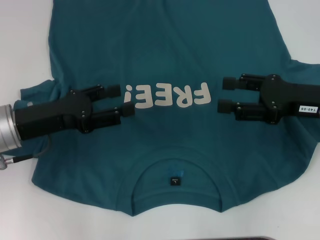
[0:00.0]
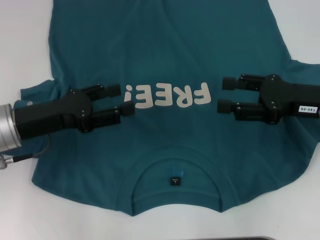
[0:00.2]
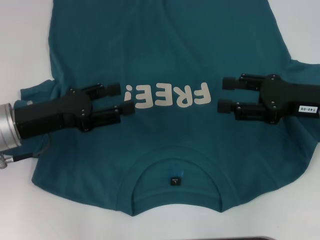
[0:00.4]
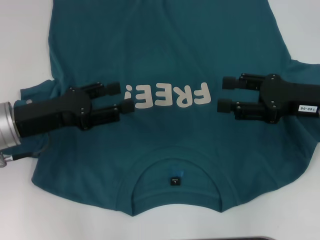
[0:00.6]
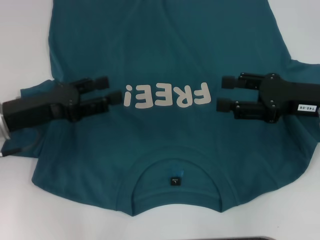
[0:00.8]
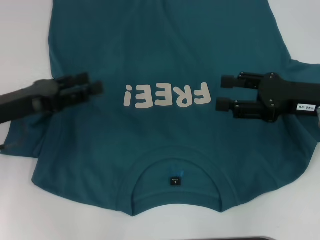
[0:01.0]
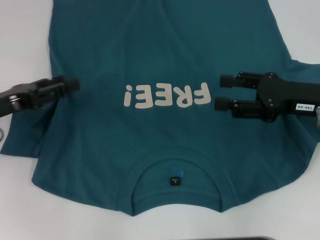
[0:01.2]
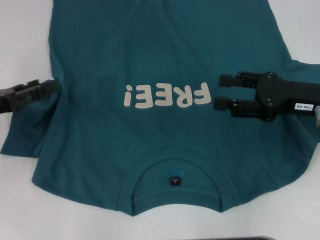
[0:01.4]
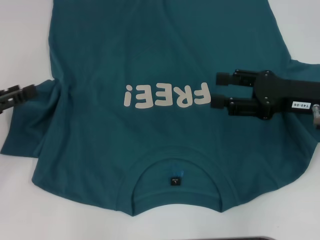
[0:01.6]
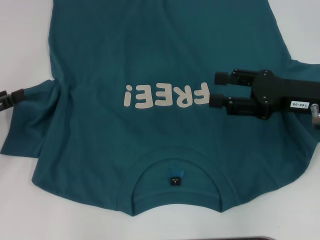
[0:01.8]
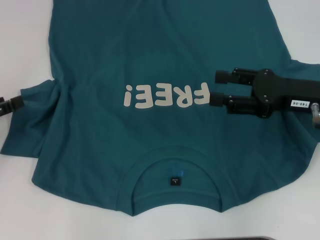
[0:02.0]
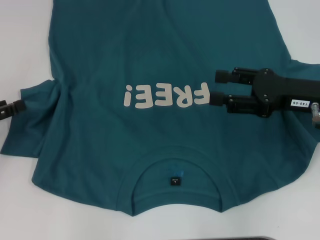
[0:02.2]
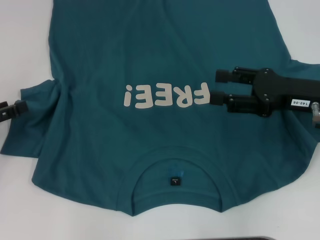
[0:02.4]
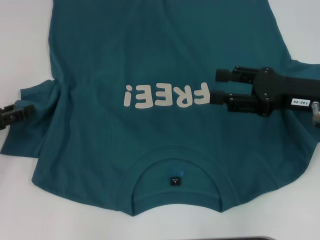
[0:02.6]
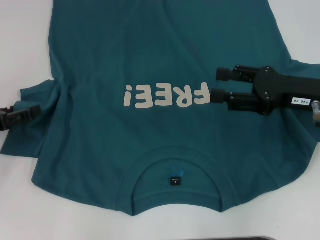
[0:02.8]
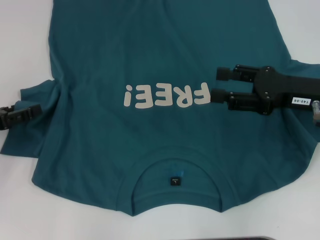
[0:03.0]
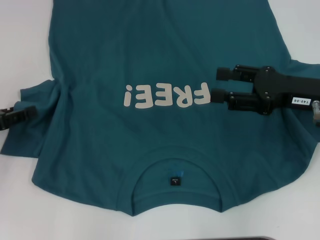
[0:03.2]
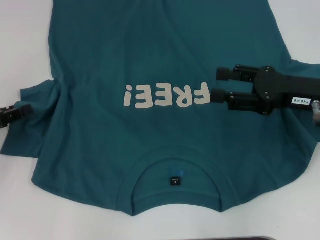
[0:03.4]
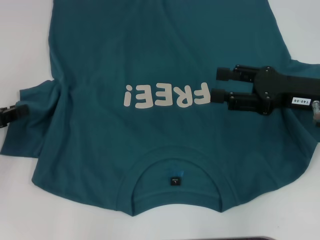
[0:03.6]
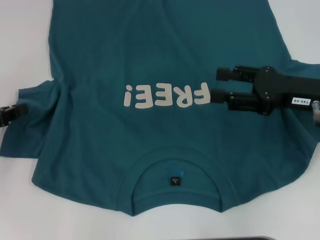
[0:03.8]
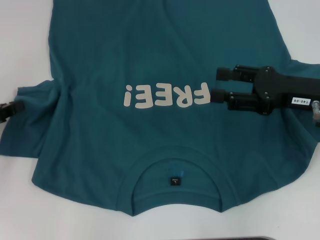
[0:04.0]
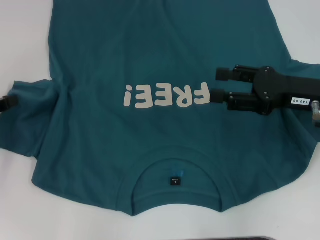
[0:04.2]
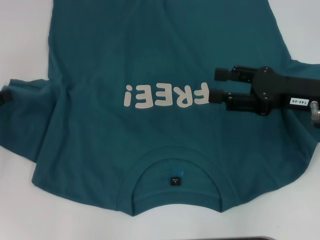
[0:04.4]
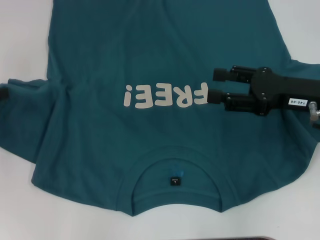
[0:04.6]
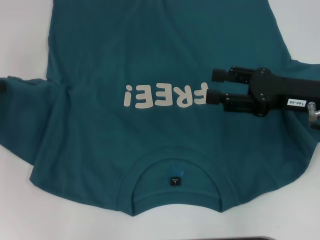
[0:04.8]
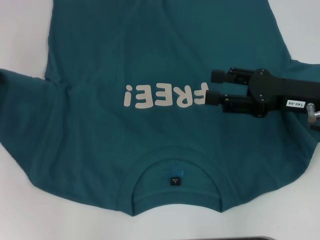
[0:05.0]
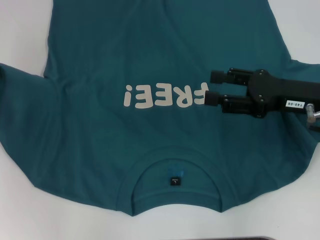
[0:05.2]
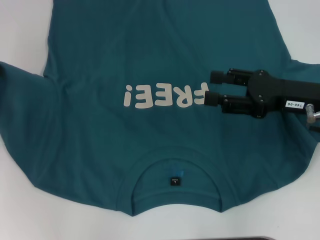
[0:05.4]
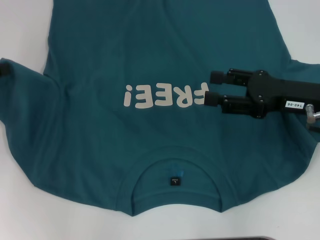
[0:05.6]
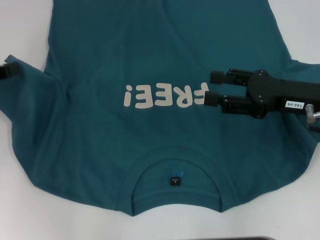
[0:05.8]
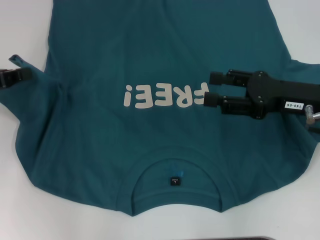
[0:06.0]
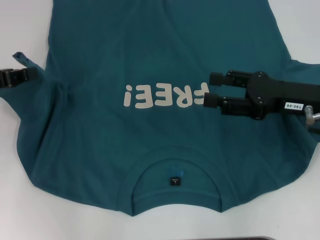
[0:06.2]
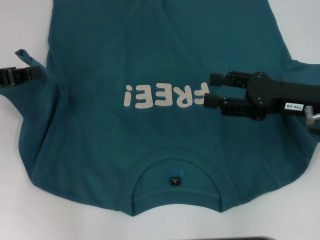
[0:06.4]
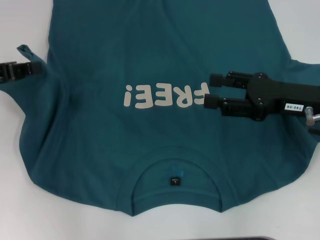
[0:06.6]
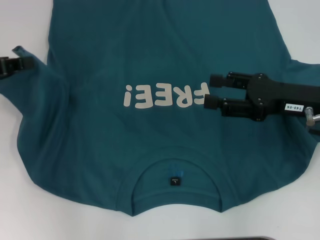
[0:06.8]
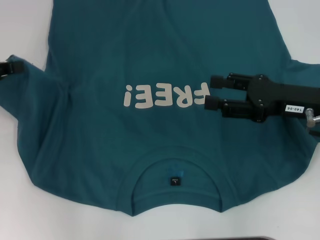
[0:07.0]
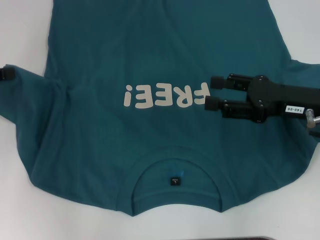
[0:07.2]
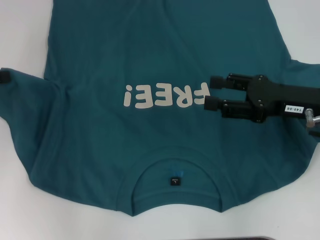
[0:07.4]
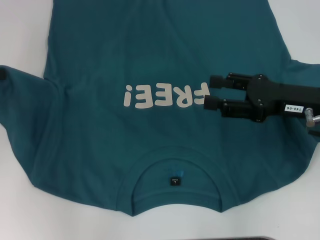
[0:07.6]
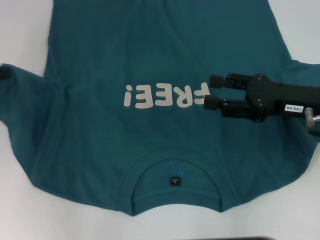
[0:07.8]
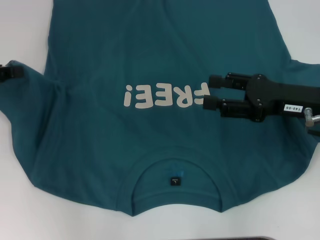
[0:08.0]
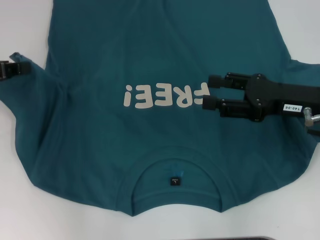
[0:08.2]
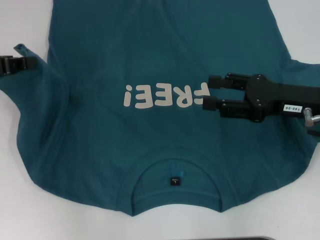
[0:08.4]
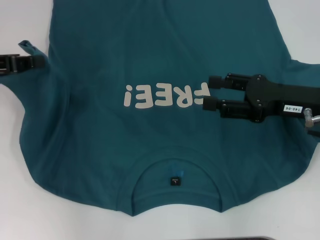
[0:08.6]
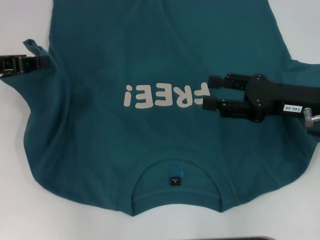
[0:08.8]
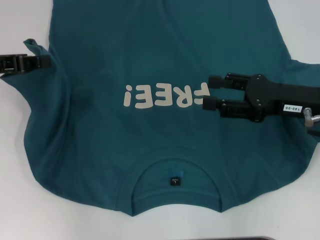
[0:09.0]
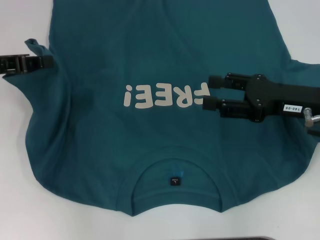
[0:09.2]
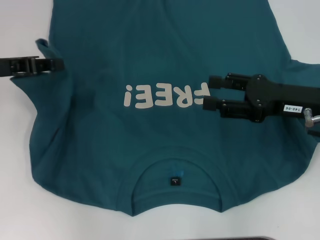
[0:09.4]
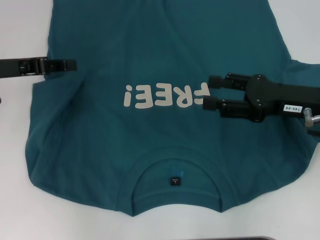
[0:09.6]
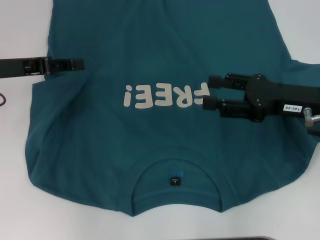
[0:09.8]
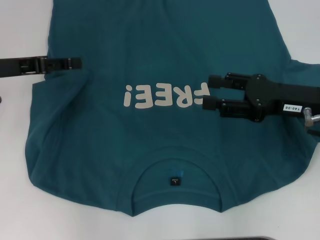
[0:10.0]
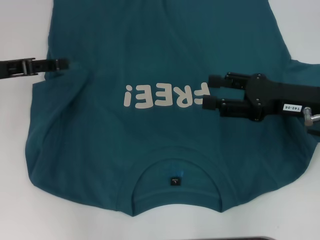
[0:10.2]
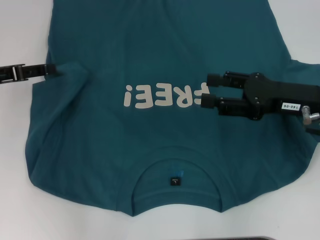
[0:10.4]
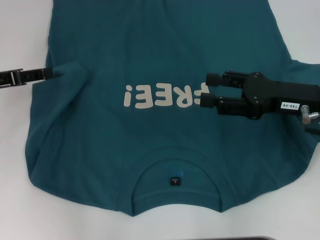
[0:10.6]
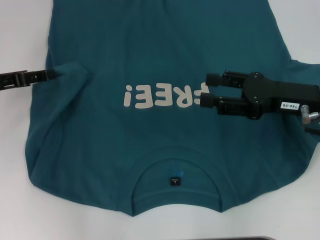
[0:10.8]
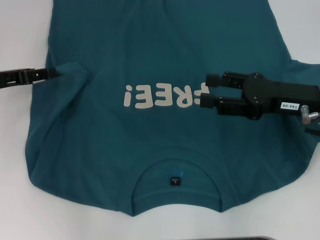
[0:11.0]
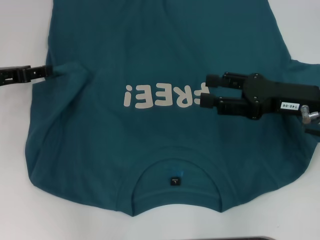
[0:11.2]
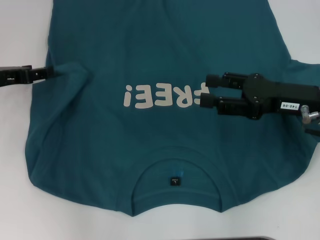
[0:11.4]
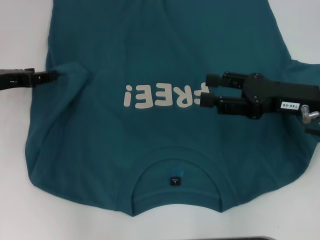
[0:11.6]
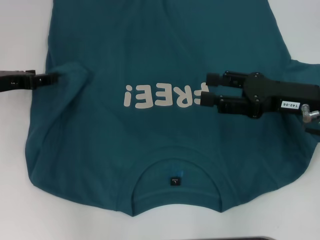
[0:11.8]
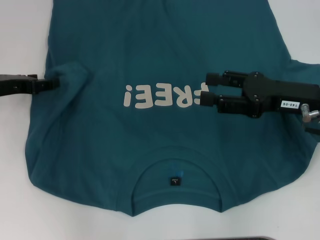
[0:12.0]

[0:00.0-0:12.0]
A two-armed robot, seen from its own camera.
0:00.0 to 0:01.6: The left gripper goes approximately 10 cm to the left.
0:01.6 to 0:03.0: The grippers make only small movements.
0:03.0 to 0:04.4: The left gripper closes up.
0:04.4 to 0:06.0: The left gripper shifts by about 5 cm.
0:06.0 to 0:07.6: The grippers move only a little.
0:07.6 to 0:09.0: The left gripper shifts approximately 5 cm to the right.
0:09.0 to 0:10.4: The left gripper opens up.
0:10.4 to 0:12.0: The grippers stay close to where they were, moving slightly.

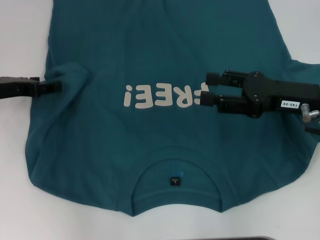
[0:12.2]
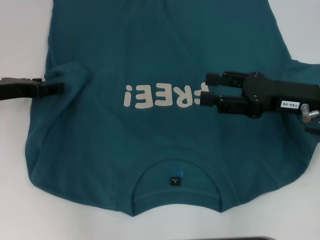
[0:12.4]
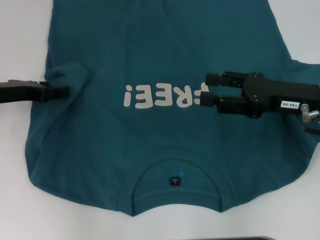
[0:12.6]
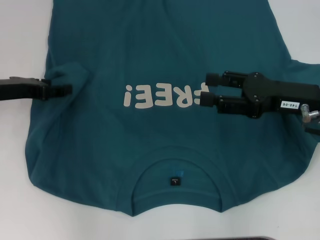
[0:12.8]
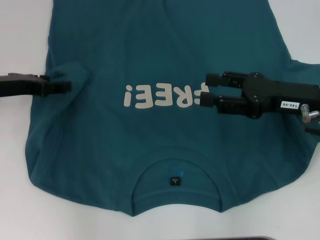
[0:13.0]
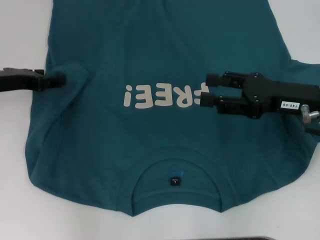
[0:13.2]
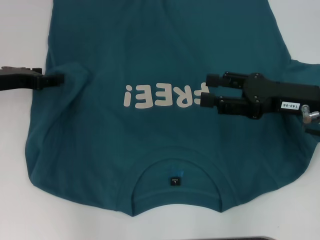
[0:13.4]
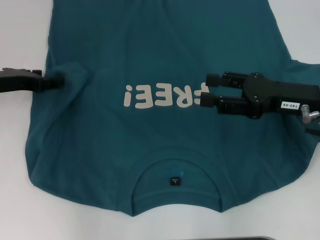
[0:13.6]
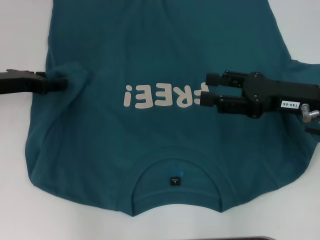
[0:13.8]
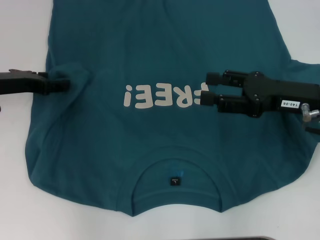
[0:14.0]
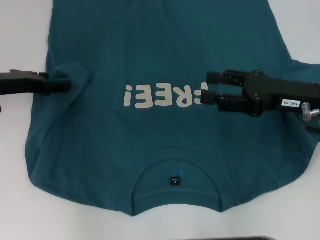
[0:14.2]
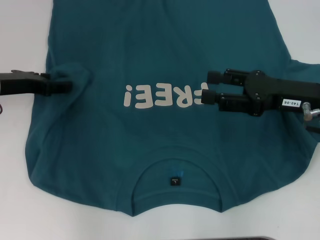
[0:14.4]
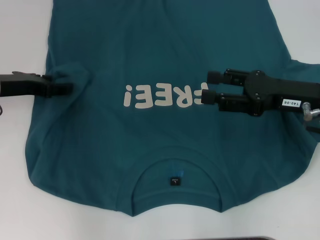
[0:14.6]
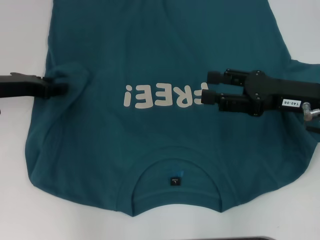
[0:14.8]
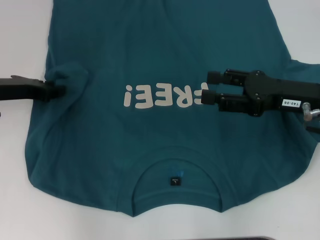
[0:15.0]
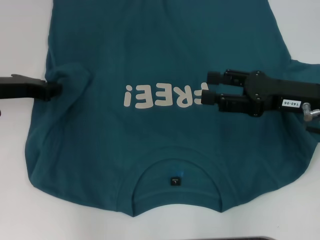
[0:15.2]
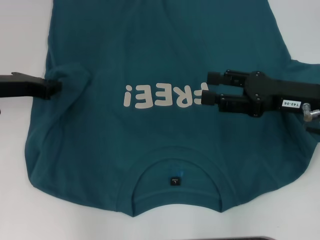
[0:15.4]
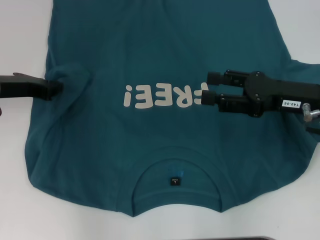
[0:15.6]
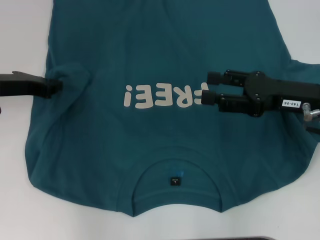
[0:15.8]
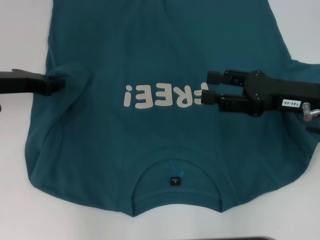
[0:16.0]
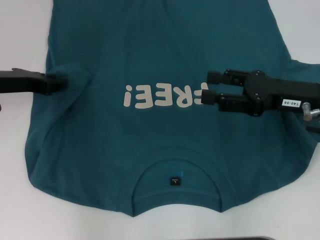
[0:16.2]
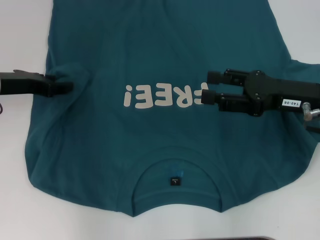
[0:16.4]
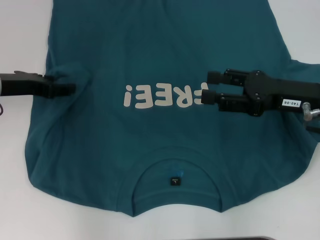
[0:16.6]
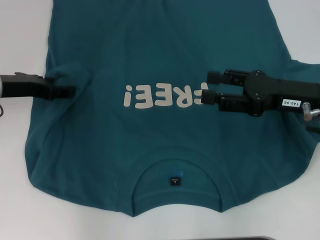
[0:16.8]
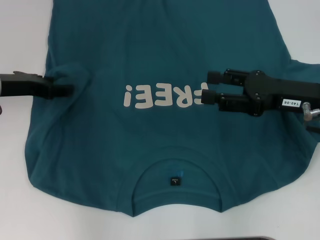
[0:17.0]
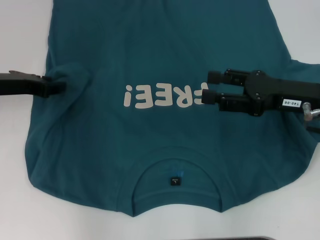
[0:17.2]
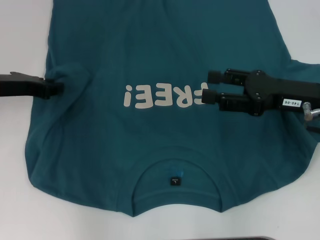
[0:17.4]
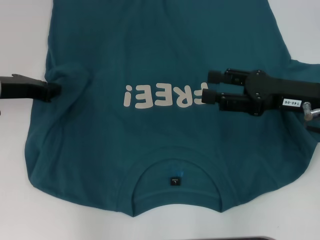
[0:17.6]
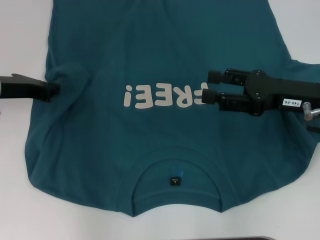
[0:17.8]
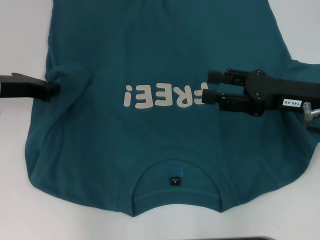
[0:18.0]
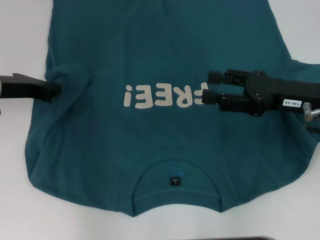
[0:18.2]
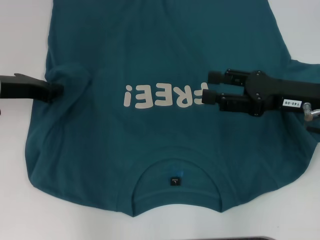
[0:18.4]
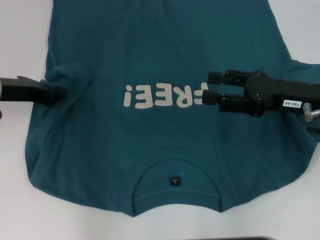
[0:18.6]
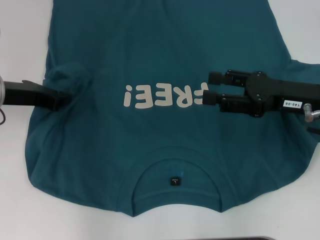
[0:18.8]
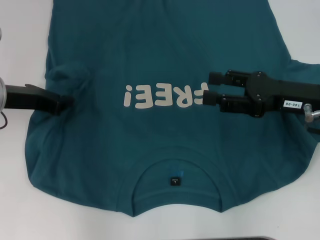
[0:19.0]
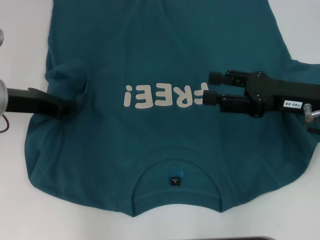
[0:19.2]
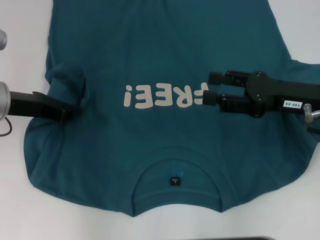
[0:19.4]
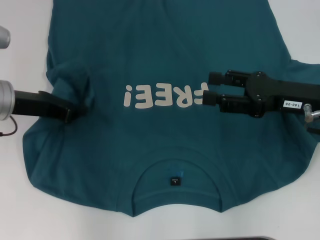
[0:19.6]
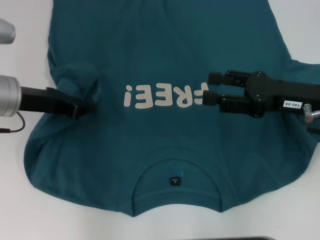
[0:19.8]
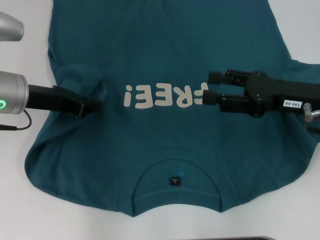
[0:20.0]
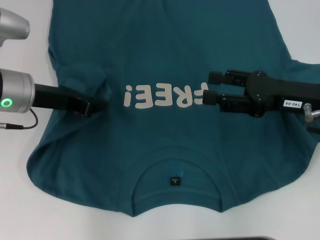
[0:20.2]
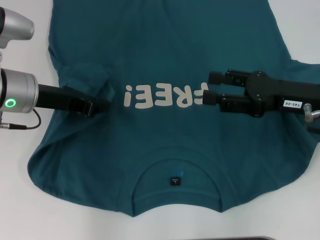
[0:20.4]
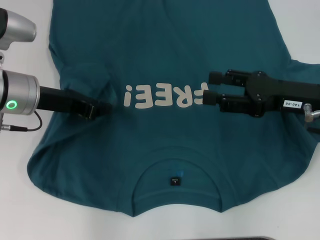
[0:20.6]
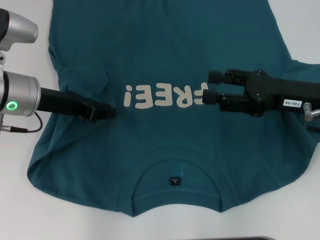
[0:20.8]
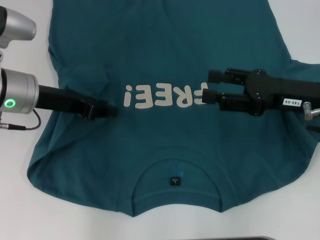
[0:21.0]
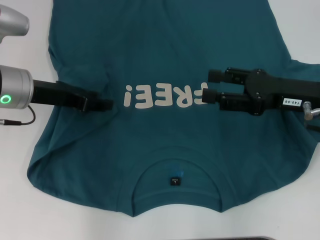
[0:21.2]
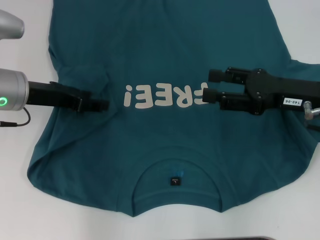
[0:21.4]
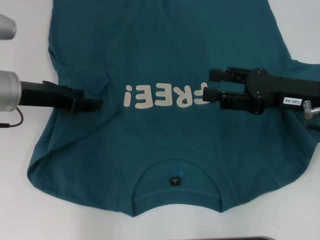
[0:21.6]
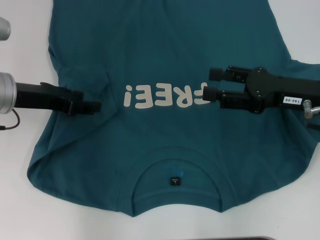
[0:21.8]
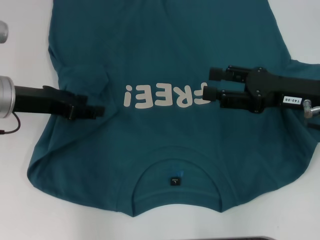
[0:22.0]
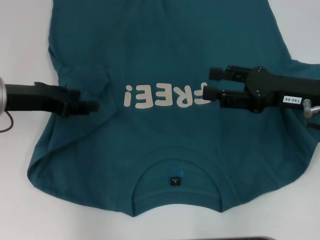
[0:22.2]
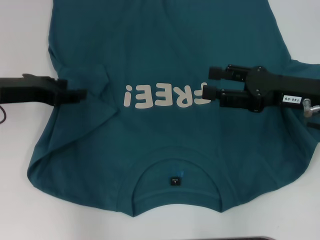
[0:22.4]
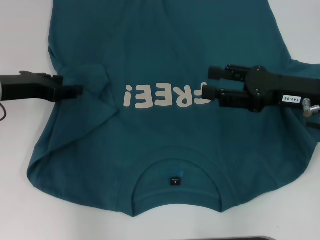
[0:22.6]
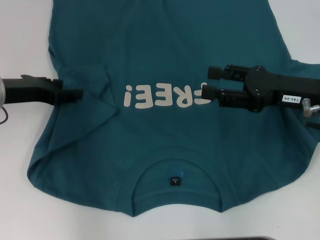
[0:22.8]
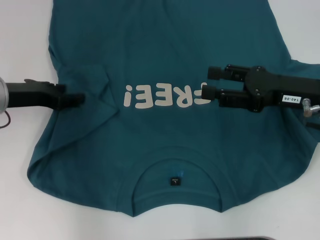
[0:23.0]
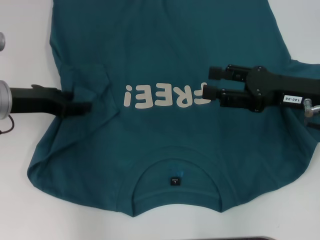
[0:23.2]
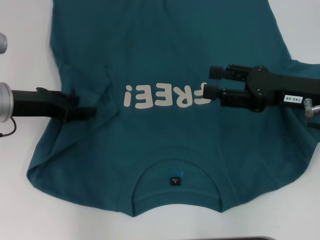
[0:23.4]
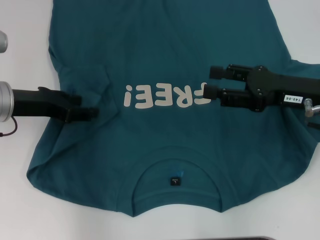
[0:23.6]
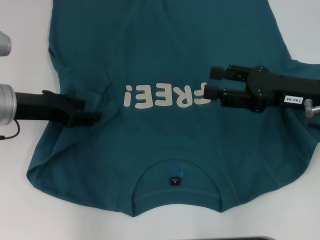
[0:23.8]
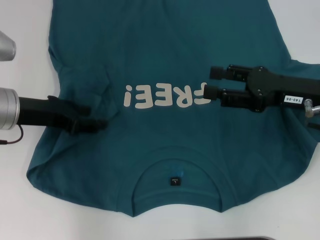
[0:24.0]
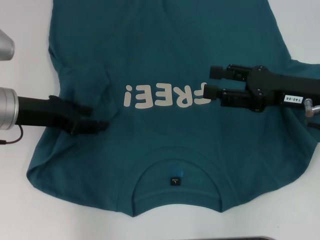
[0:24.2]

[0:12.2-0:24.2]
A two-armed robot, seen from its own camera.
0:12.2 to 0:13.8: There are only small adjustments of the grippers.
0:13.8 to 0:15.2: The left gripper closes up.
0:15.2 to 0:16.6: The left gripper opens its fingers.
0:16.6 to 0:18.2: The left gripper closes its fingers.
0:18.2 to 0:19.8: The grippers stay close to where they were, moving slightly.
0:19.8 to 0:21.2: The left gripper opens.
0:21.2 to 0:24.2: The grippers make only small movements.
